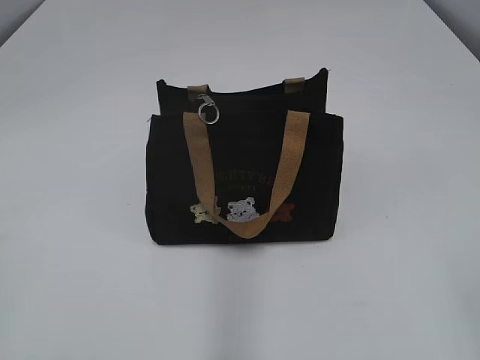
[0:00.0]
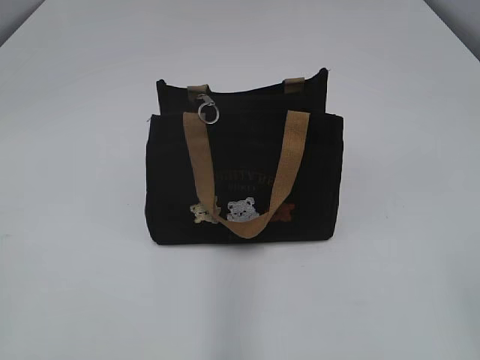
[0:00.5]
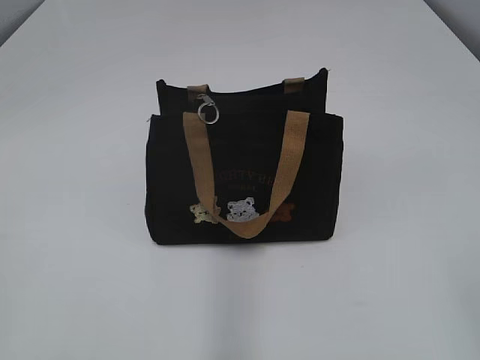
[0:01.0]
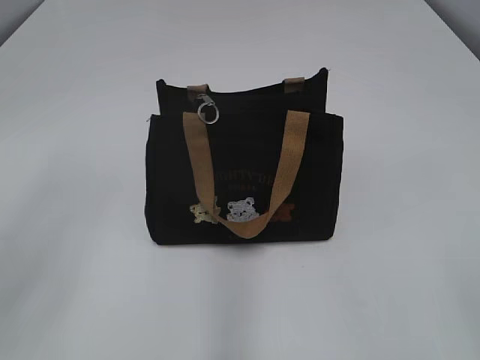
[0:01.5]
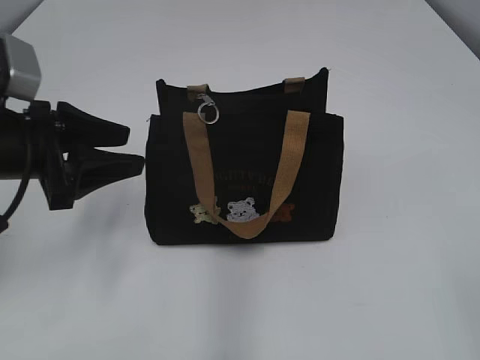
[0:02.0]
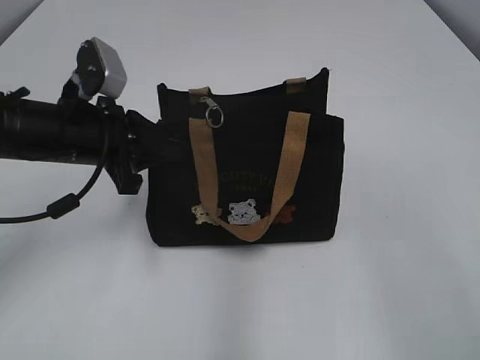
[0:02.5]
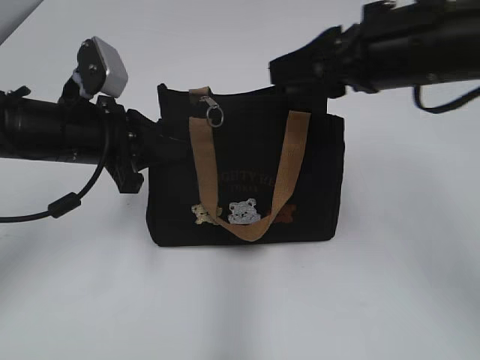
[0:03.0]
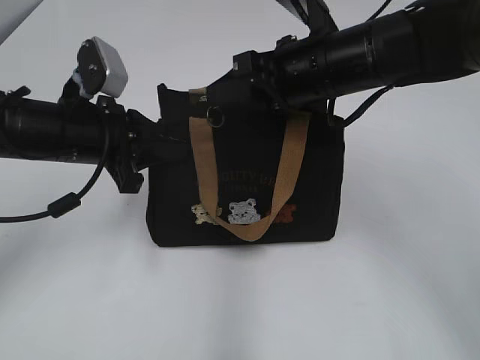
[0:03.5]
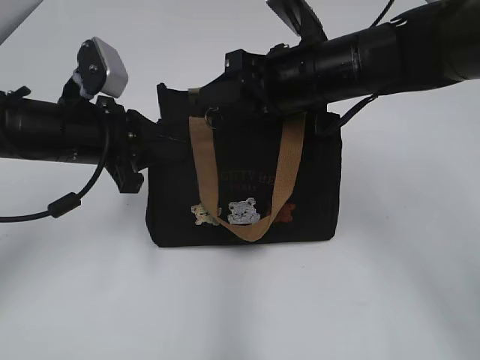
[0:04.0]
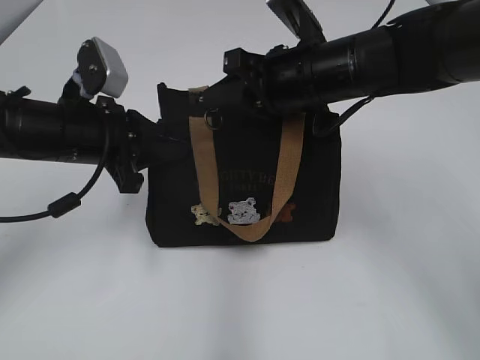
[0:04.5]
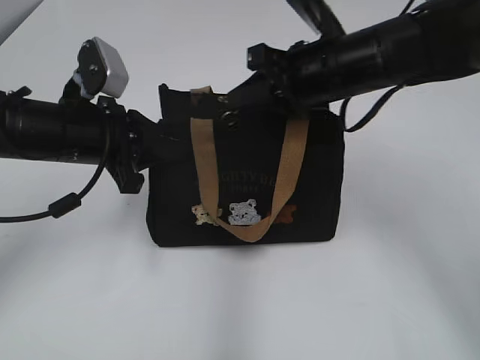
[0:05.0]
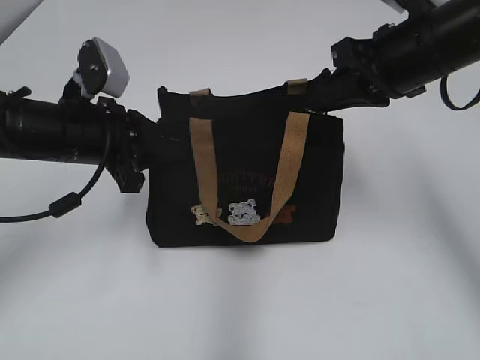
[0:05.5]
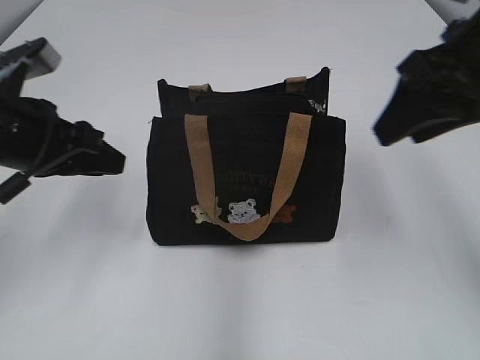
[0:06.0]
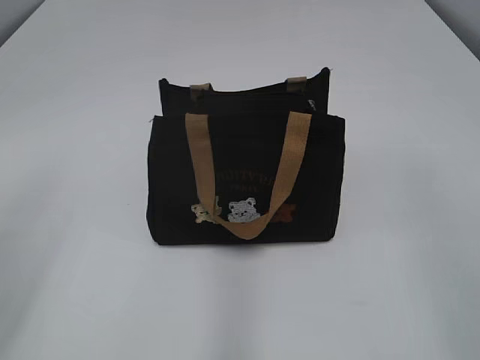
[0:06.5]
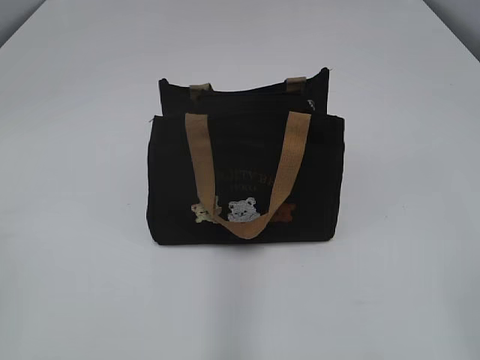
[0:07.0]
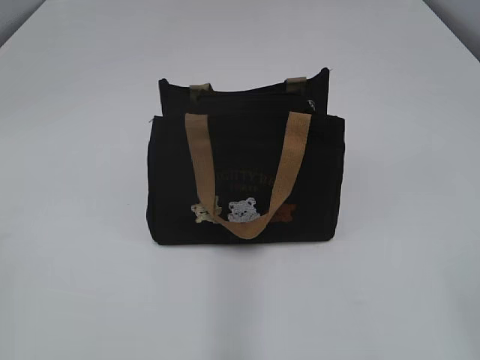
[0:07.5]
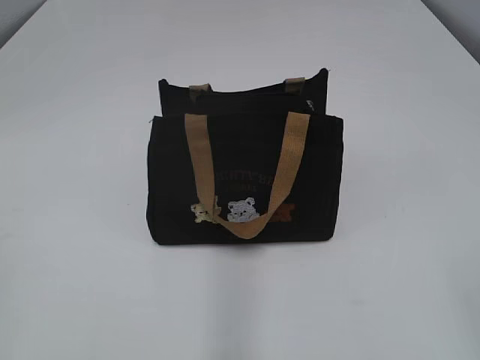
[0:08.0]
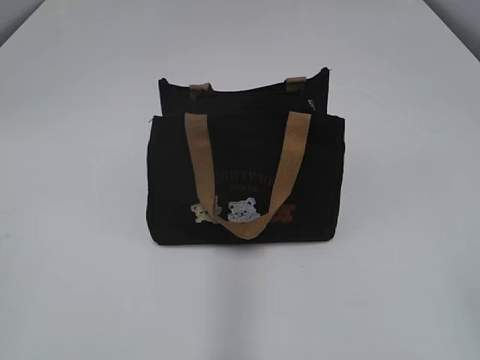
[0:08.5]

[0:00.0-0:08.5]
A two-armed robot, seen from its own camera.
Step, 0:00.0 to 0:05.5: Pull open the zipper with your right hand.
0:02.0 to 0:04.0: The right gripper moves forward and to the left, about 40 cm. Meanwhile the left gripper heads to the right and forward, covering some 5 cm, and closes.
0:04.0 to 0:06.5: The right gripper moves backward, to the right and upward, some 30 cm, and closes, then opens again. Meanwhile the left gripper heads backward, upward and to the left, covering some 25 cm, and opens its fingers.

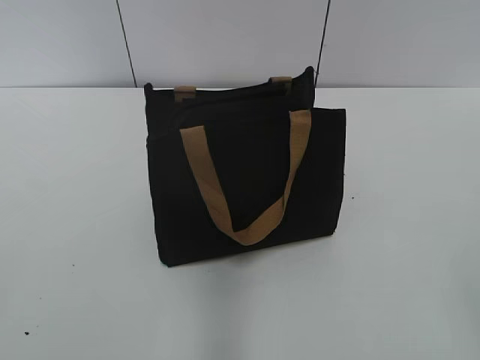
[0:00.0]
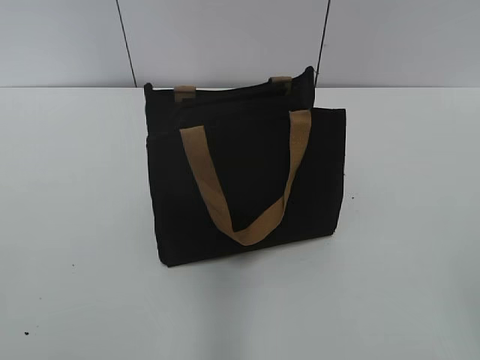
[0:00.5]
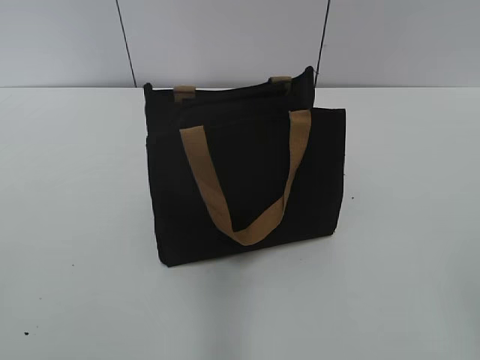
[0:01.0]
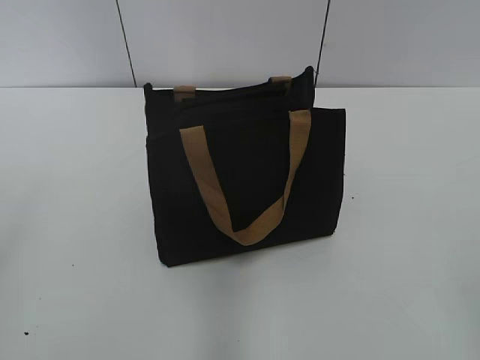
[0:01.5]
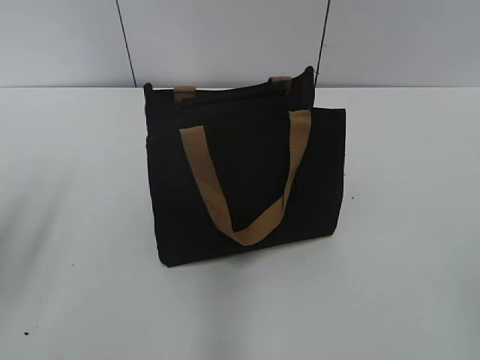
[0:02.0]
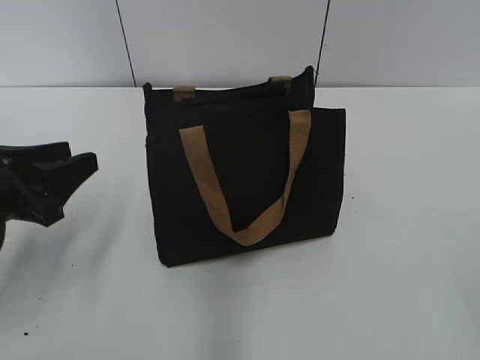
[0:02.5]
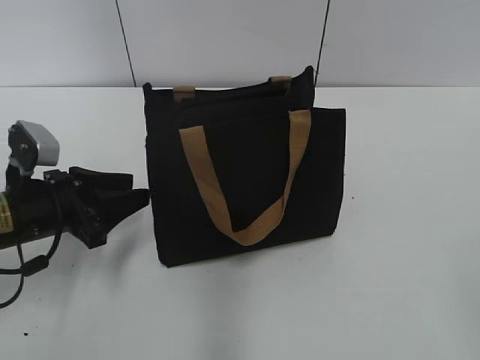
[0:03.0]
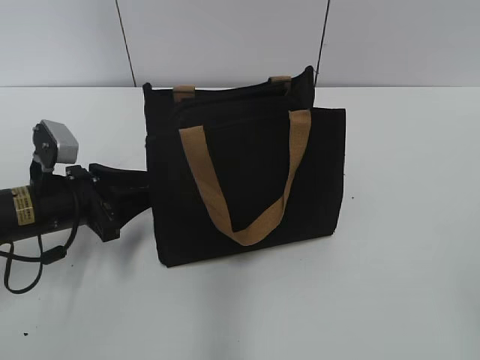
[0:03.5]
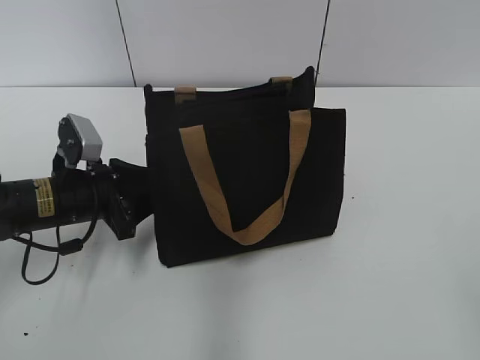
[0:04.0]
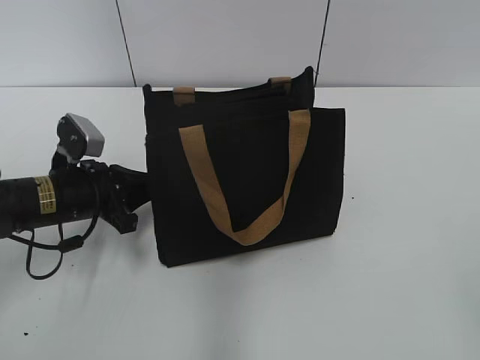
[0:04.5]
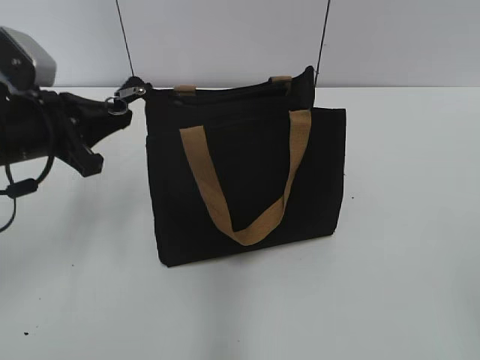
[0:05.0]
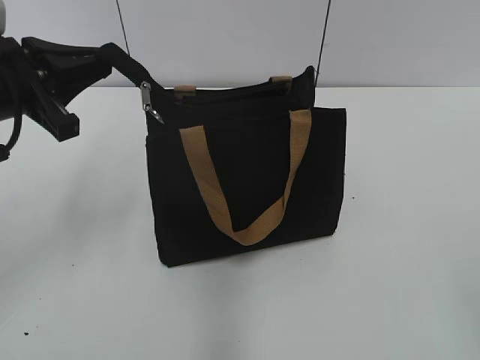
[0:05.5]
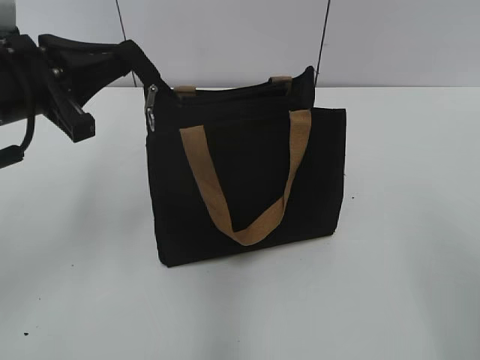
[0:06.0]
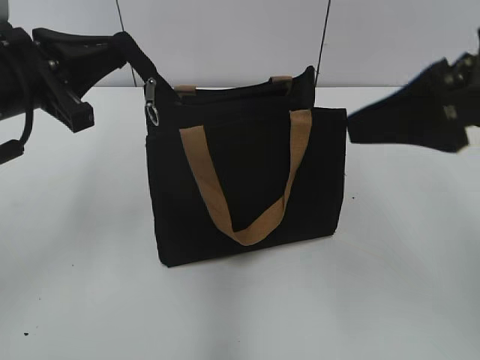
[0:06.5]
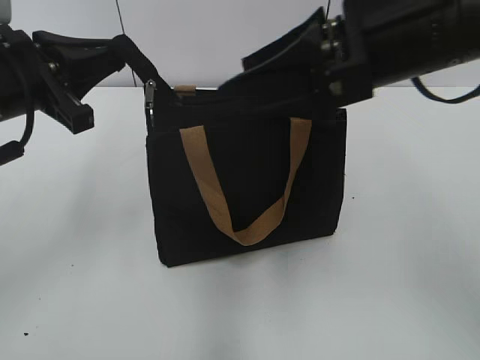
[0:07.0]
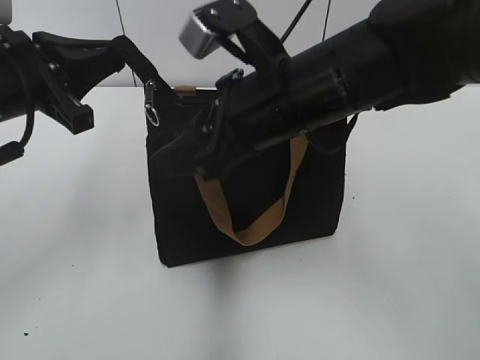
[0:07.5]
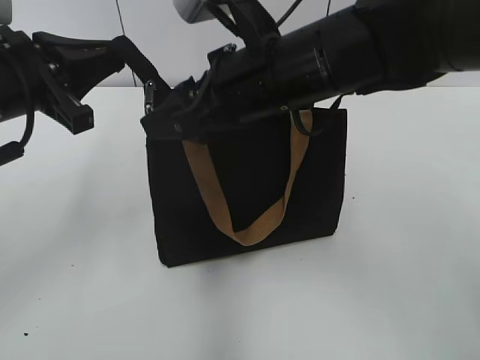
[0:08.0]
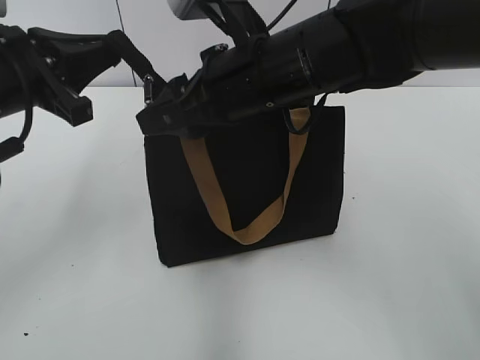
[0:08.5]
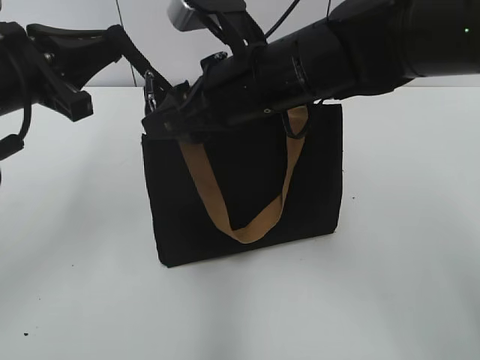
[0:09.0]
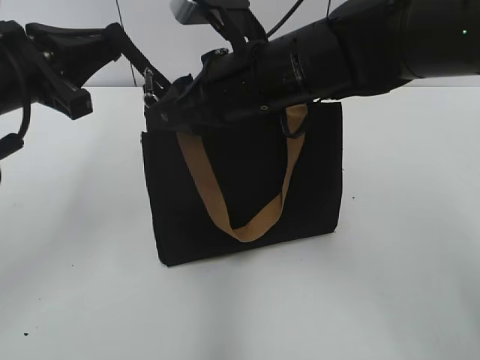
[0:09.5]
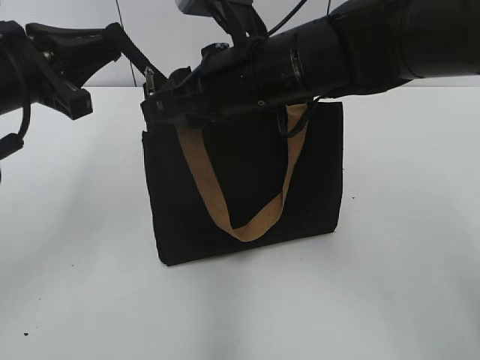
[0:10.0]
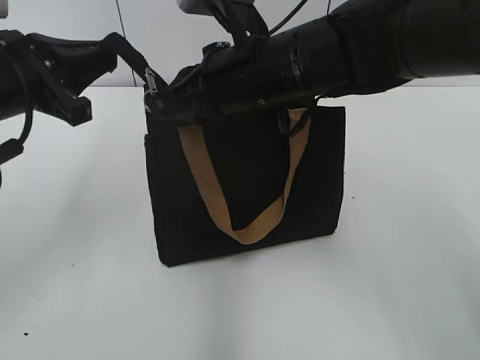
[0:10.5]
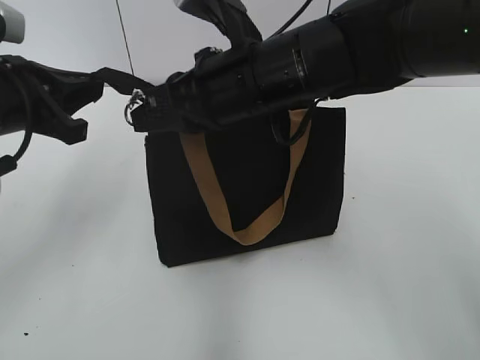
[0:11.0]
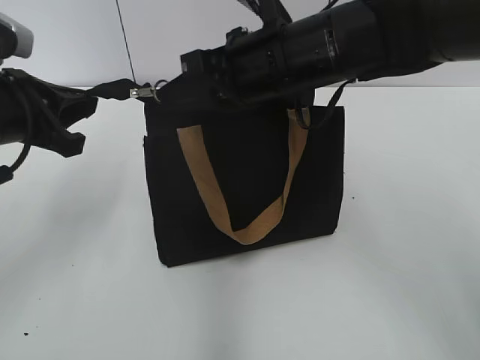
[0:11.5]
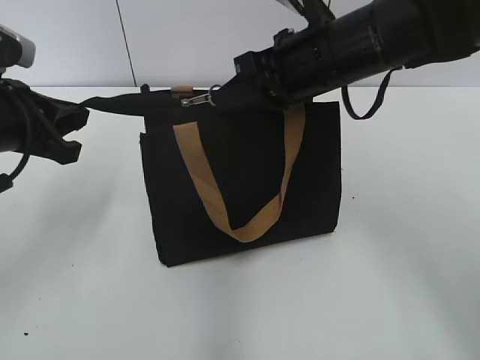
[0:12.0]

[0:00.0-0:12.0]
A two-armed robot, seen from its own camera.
0:02.0 to 0:04.0: The left gripper travels downward, forward and to the right by some 25 cm.
0:04.0 to 0:06.0: The left gripper is displaced upward by approximately 15 cm, and closes.
0:06.0 to 0:08.0: The right gripper heads forward and to the left, covering some 35 cm.
0:08.0 to 0:10.0: The grippers move only a little.
0:10.0 to 0:12.0: The right gripper moves to the right, about 5 cm, and closes up.

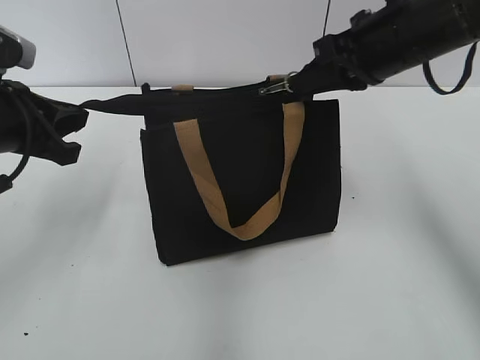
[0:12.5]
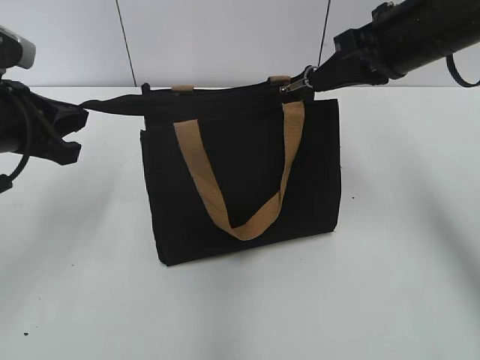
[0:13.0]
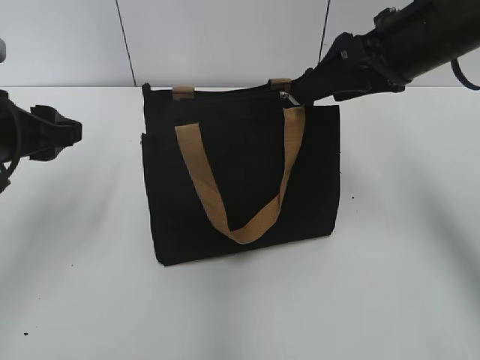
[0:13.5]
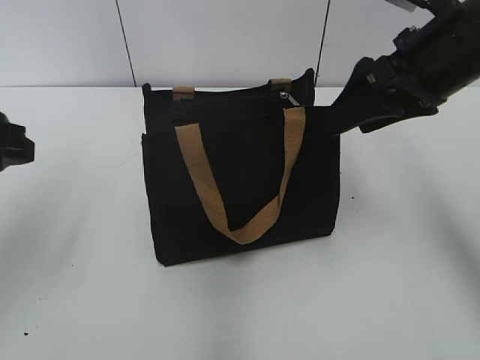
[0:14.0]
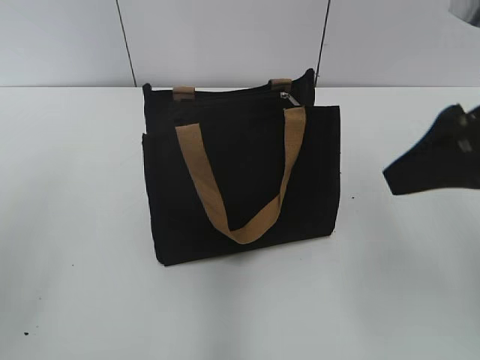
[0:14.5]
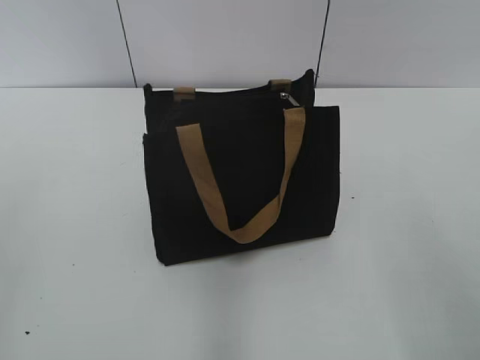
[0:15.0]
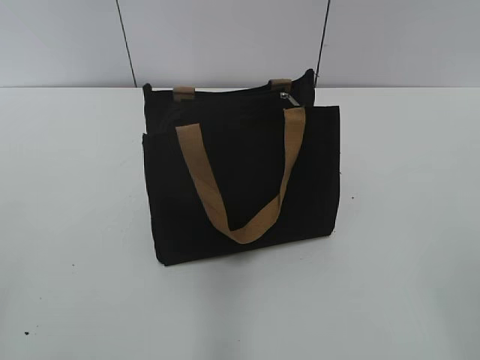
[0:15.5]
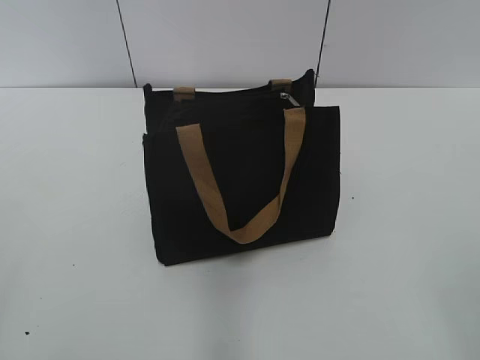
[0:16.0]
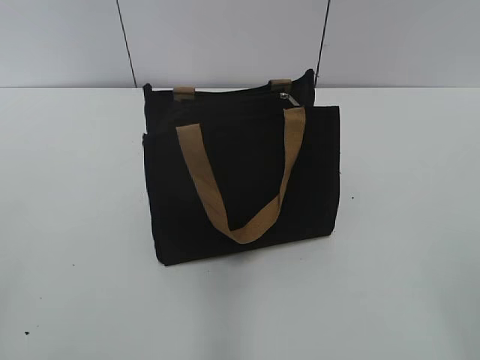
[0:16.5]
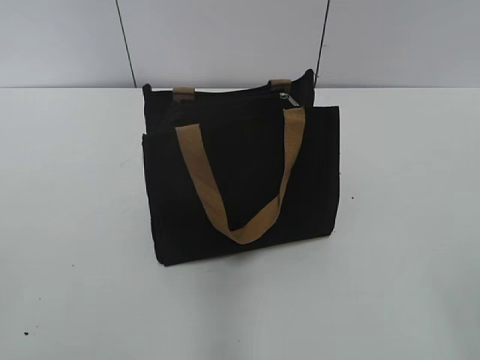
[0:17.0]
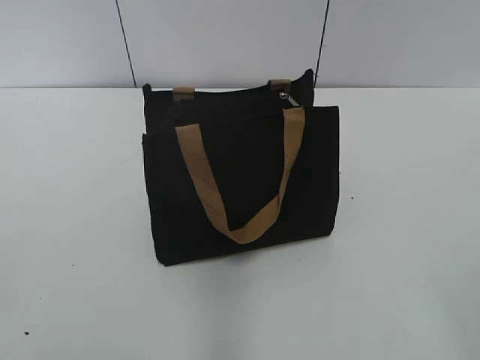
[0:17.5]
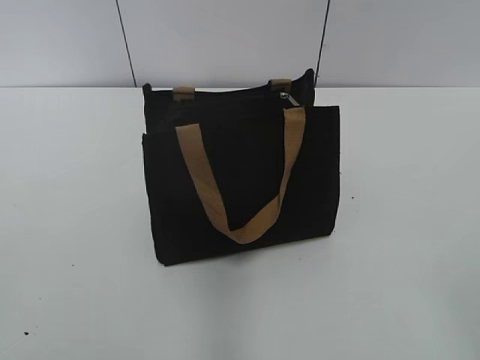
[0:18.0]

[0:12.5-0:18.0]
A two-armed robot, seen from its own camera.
0:12.5 to 0:14.5: The left gripper moves backward and upward, some 15 cm, and opens up, while the right gripper goes approximately 15 cm backward, and opens up.
0:14.5 to 0:16.0: The right gripper travels backward by roughly 20 cm.
